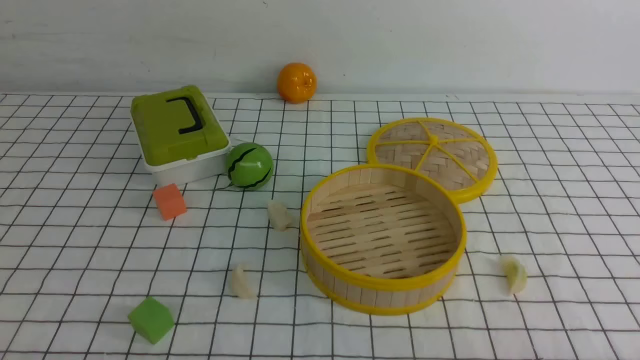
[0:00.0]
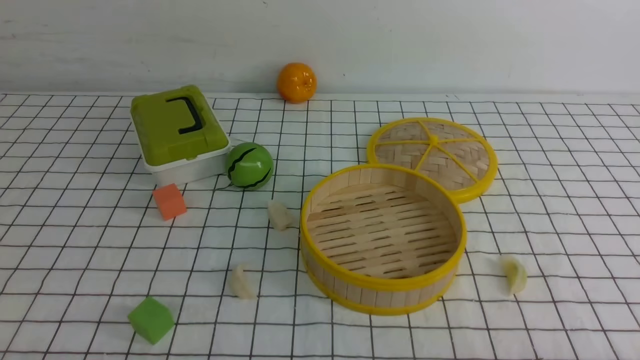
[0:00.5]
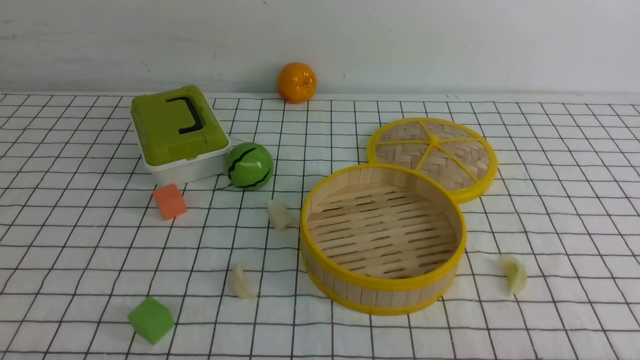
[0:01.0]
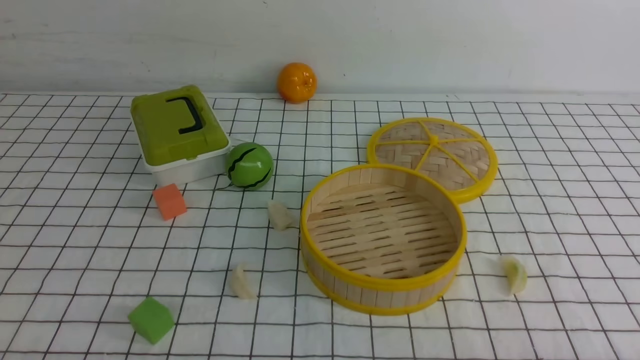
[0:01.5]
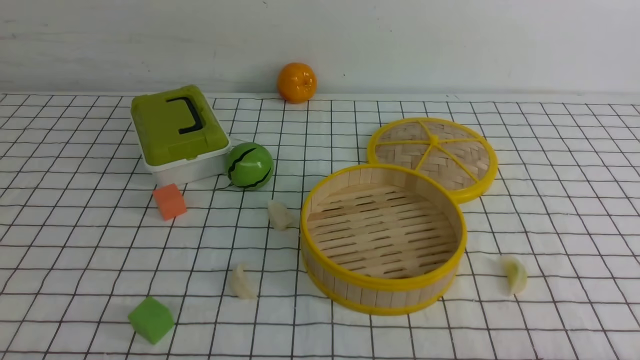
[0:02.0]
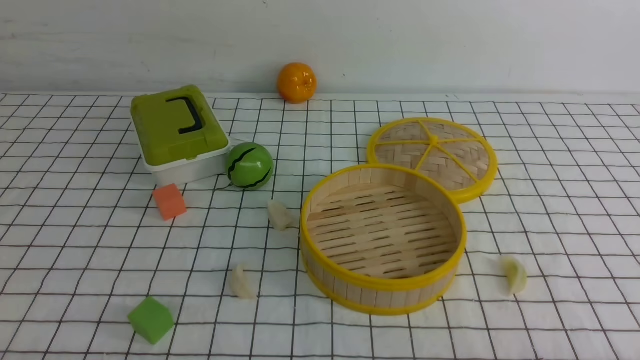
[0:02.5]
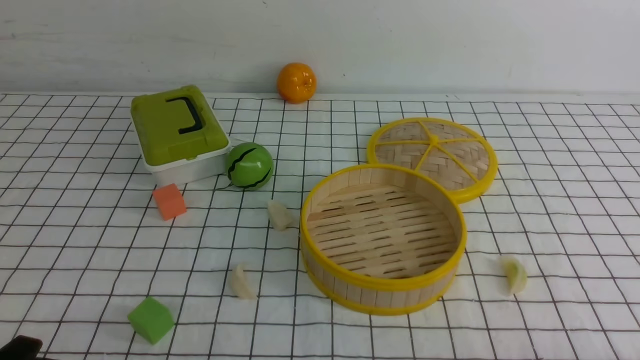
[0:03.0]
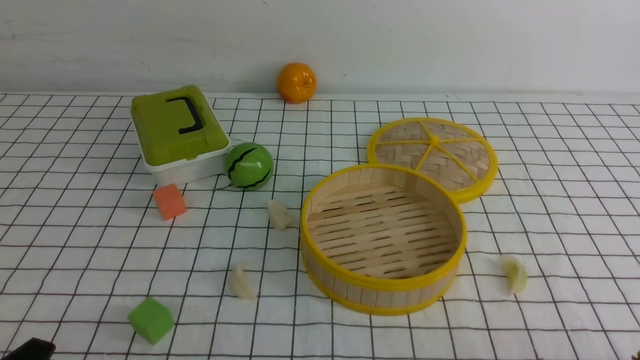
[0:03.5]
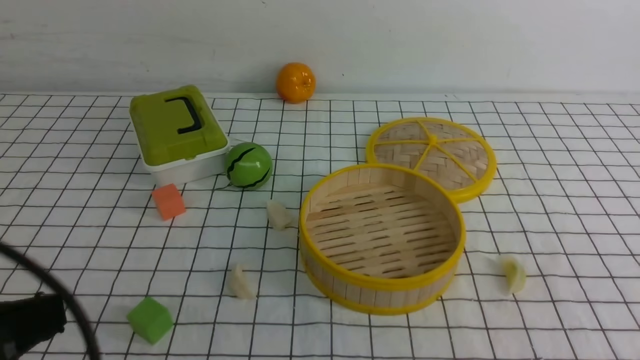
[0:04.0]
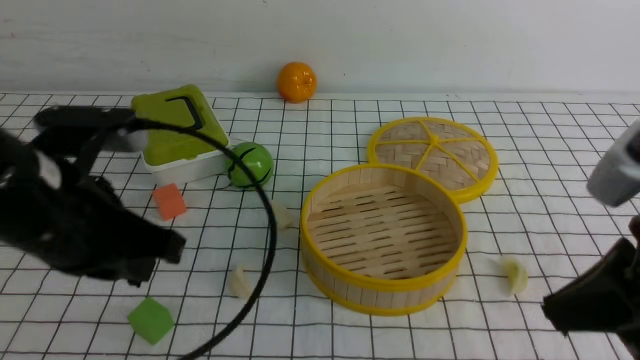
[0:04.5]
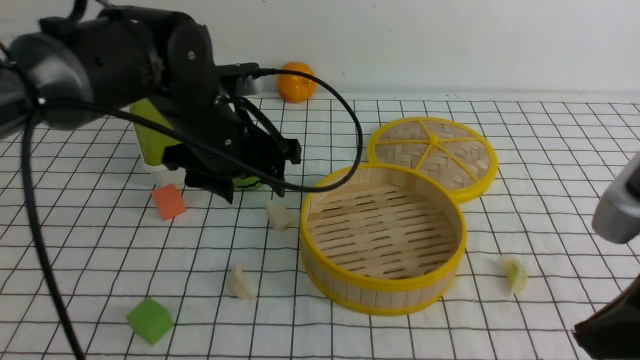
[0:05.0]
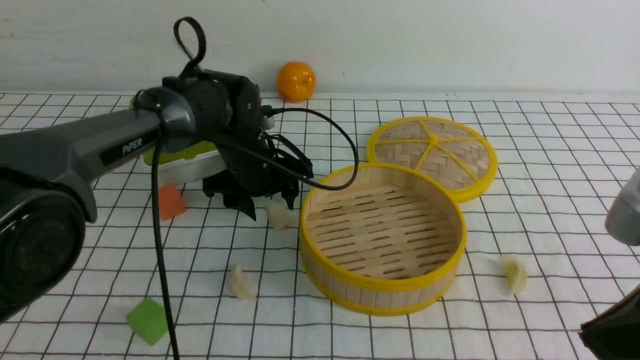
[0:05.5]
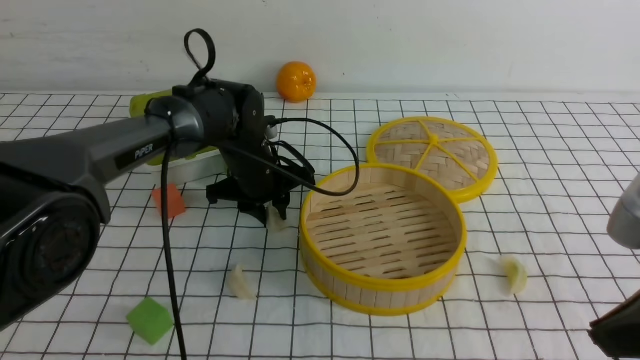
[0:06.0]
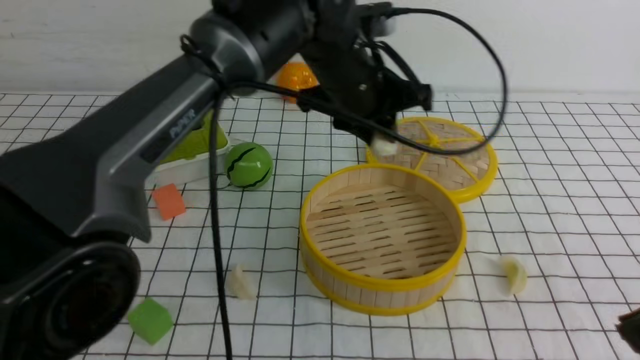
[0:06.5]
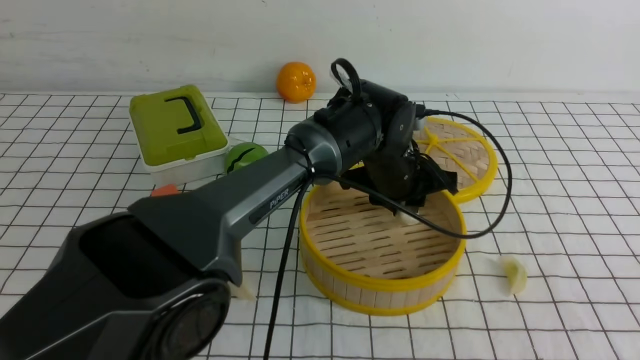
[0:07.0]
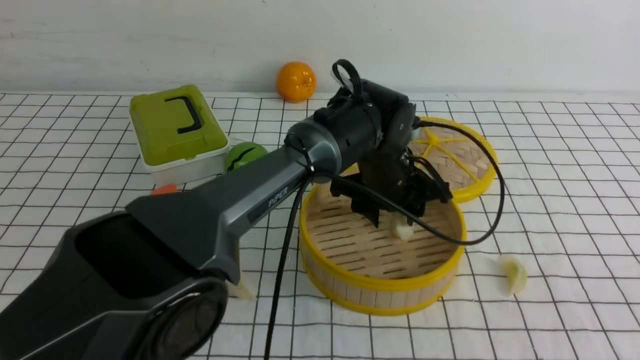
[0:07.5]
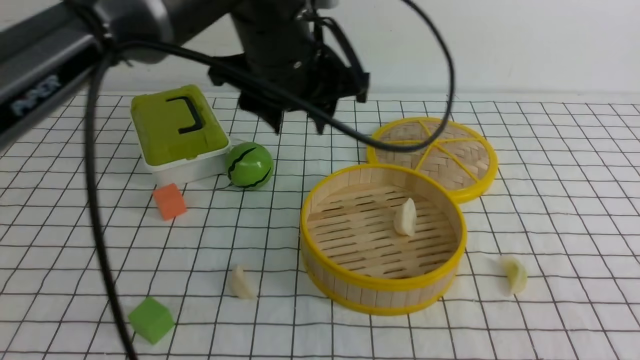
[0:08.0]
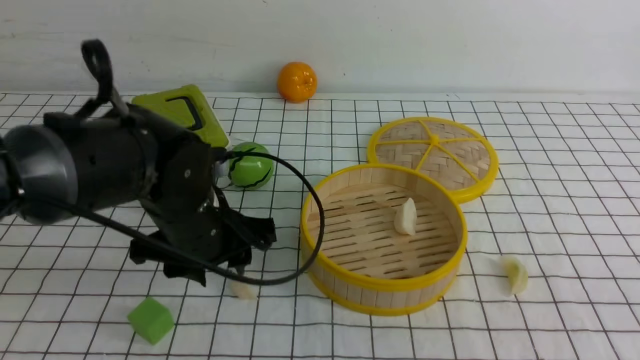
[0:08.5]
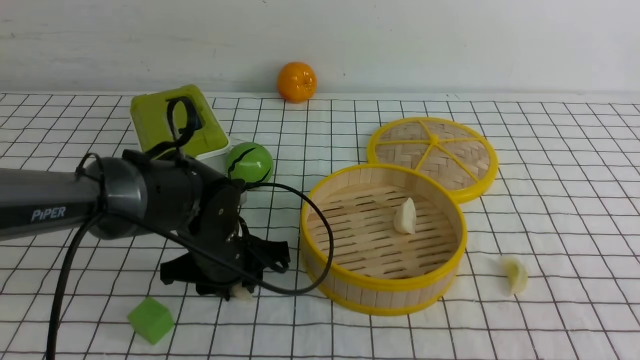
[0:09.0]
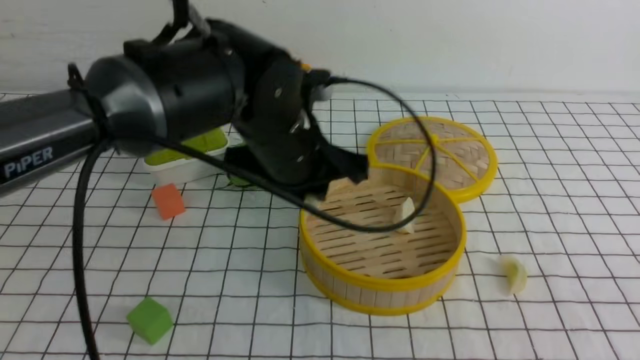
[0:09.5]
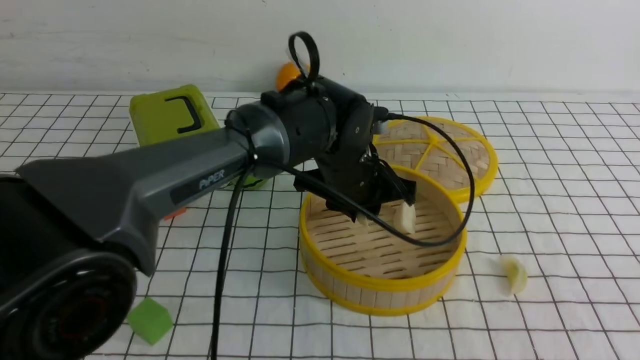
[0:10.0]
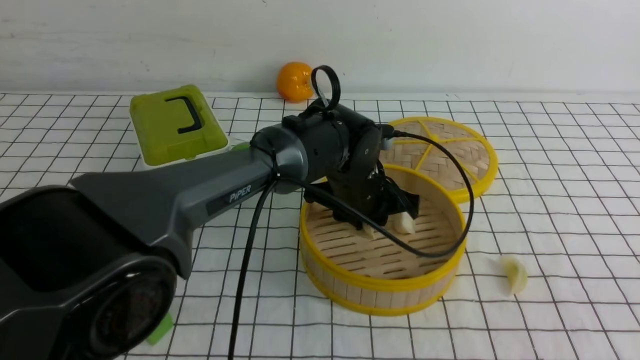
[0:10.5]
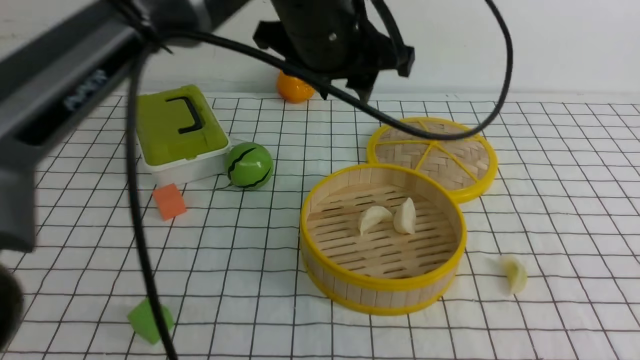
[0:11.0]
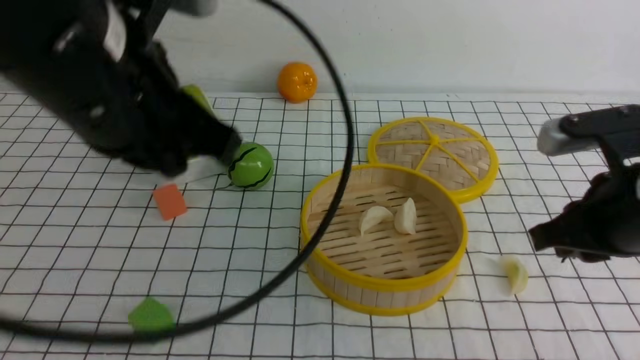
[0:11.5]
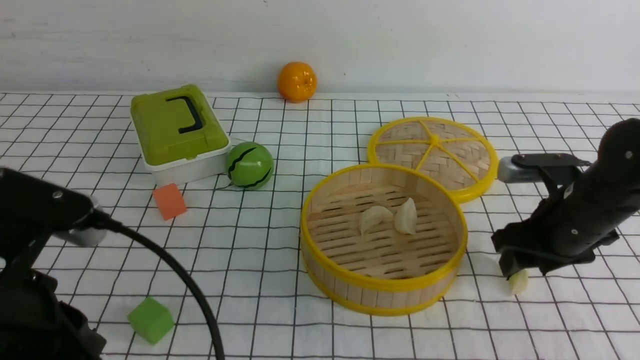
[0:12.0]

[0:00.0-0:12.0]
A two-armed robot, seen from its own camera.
Task of the whole recording: put the dumplings into the steamer on the table with the white tablecloth.
Step, 0:00.0 to 0:05.5: use the left arm to grab a dumpling.
Step, 0:06.0 to 0:07.5: use the left arm to put the dumpling into the steamer.
Step, 0:08.0 to 0:09.0: use the left arm to grab a dumpling.
Step, 0:09.5 to 0:10.5: use the left arm to put the dumpling into the steamer.
0:02.0 to 0:04.0: The left gripper goes about 15 cm upward.
0:04.0 to 0:06.0: The right gripper goes some 5 cm forward; the left gripper shifts approximately 40 cm forward, and opens up.
0:06.0 to 0:08.0: The left gripper moves up and down over approximately 15 cm, changing direction 2 times, while the right gripper heads backward, covering about 10 cm.
0:08.0 to 0:10.0: The left gripper is displaced downward by about 10 cm, and closes its fingers.
0:10.0 to 0:12.0: The right gripper shifts roughly 30 cm forward and downward, and opens up. The left gripper travels backward and to the left by roughly 30 cm, and closes.

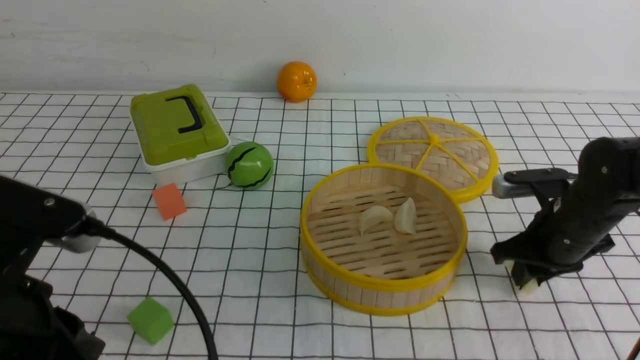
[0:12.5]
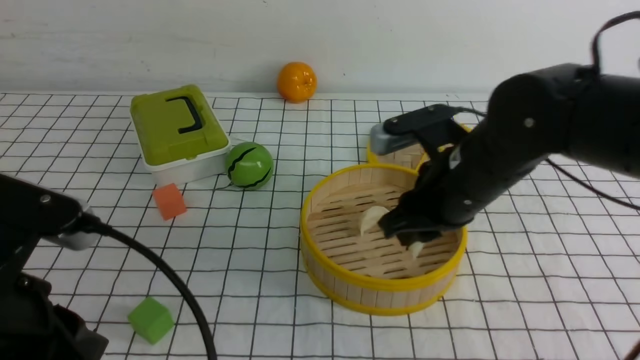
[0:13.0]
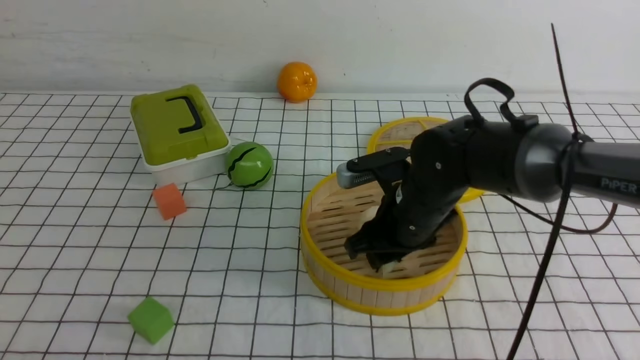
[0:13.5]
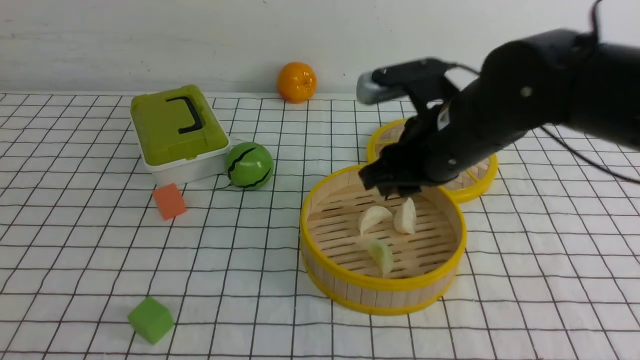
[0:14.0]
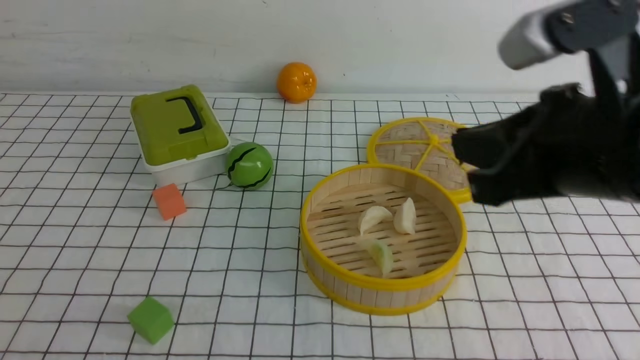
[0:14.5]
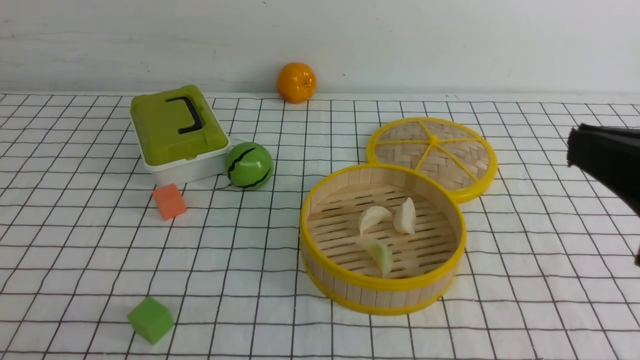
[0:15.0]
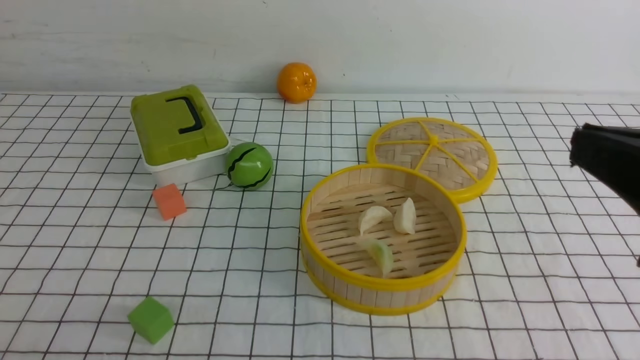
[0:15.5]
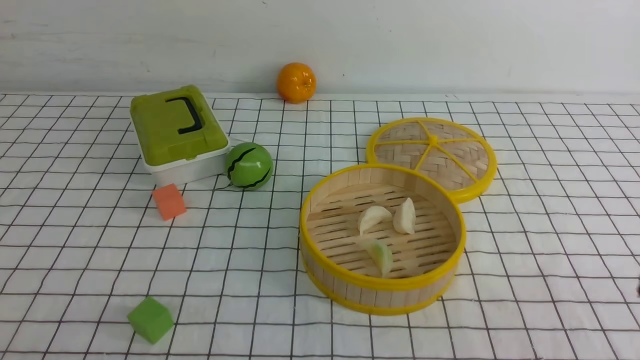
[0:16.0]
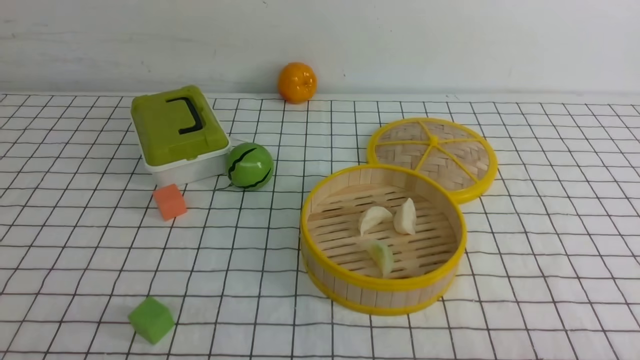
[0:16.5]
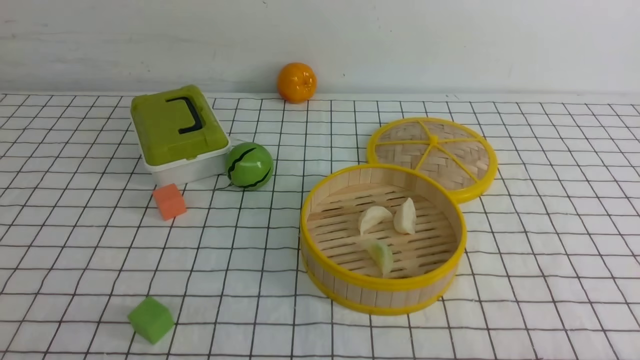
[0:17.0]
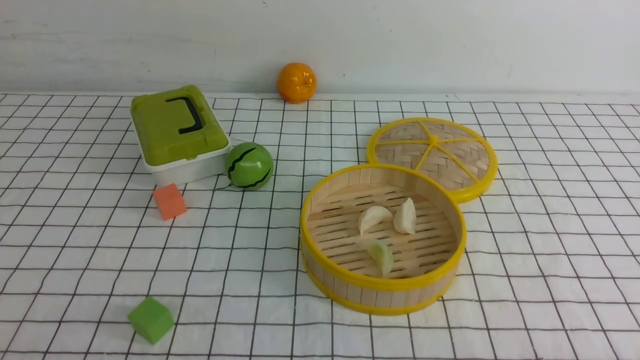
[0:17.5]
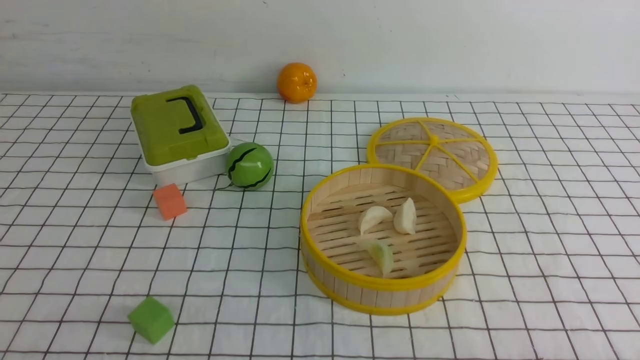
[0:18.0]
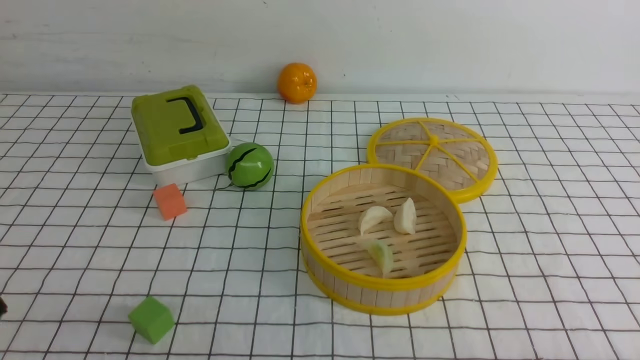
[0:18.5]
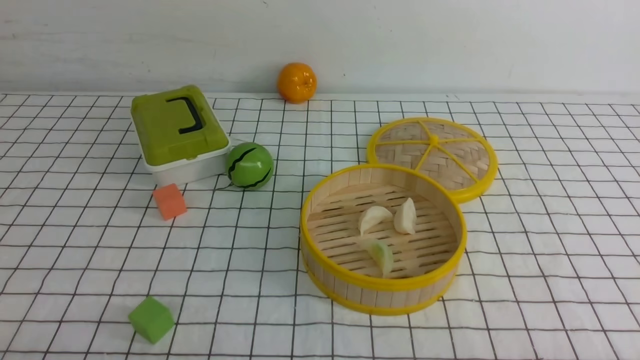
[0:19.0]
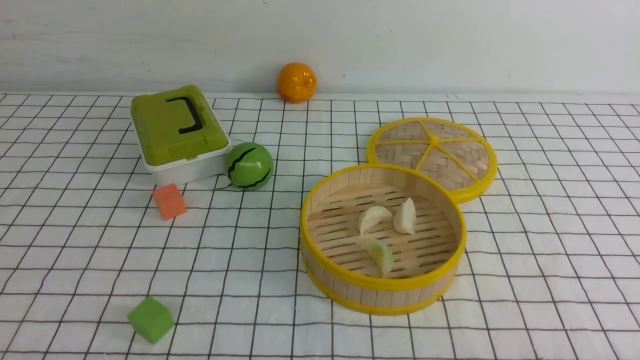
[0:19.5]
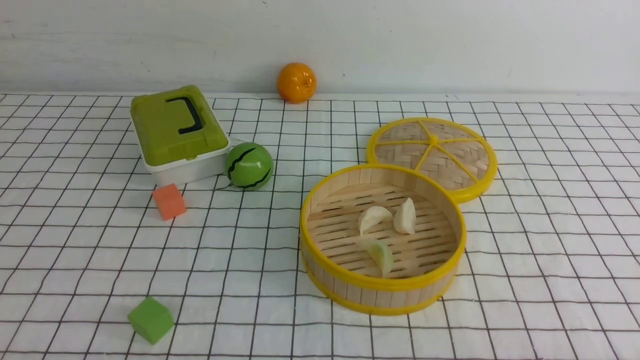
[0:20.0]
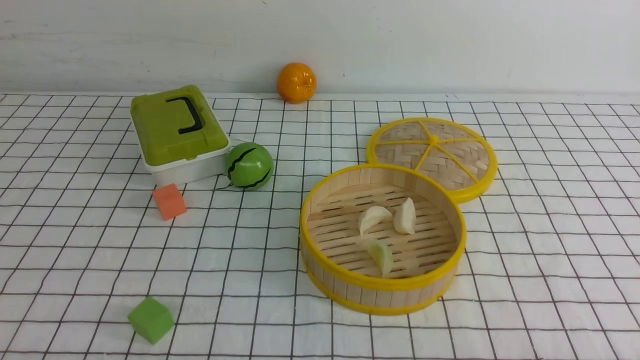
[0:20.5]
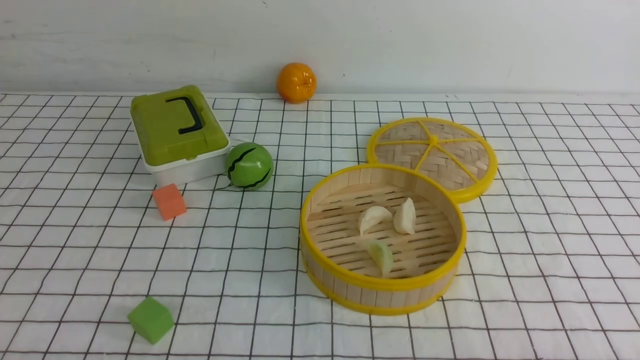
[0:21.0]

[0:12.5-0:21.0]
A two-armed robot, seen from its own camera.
Task of the whole recording: put the dumplings into the steamer on the table with the white tablecloth.
Step, 0:12.5 to 0:13.5: use the right arm to put the dumpling into the steamer.
0:12.5 to 0:14.5: The right gripper goes up and down, some 20 cm each way, reversing 2 times, and closes. Meanwhile the left gripper goes roughly 15 cm backward and to the left.
0:14.5 to 0:16.5: The right gripper shifts about 30 cm downward, backward and to the right.
